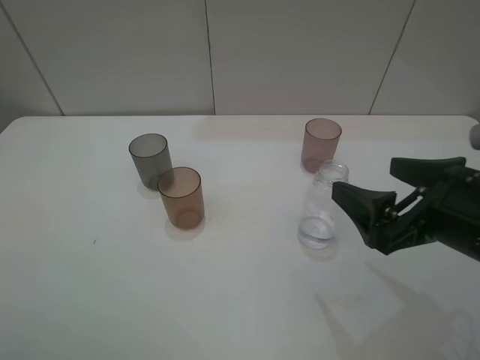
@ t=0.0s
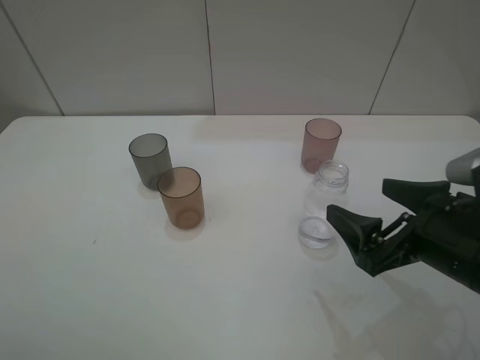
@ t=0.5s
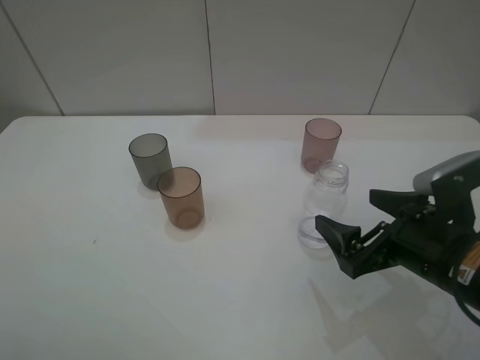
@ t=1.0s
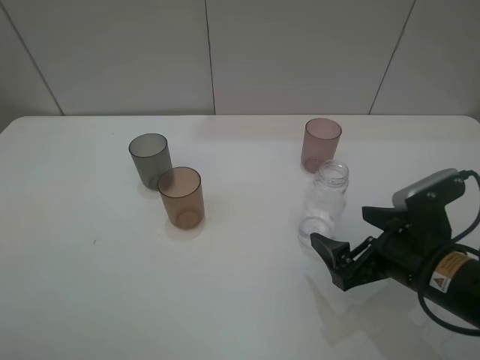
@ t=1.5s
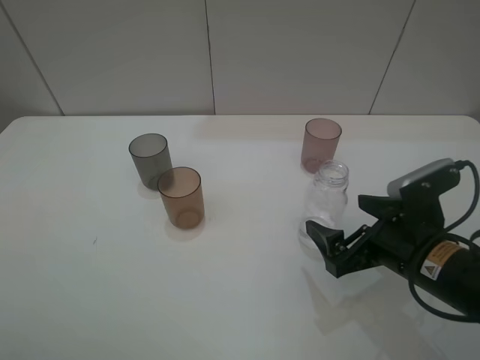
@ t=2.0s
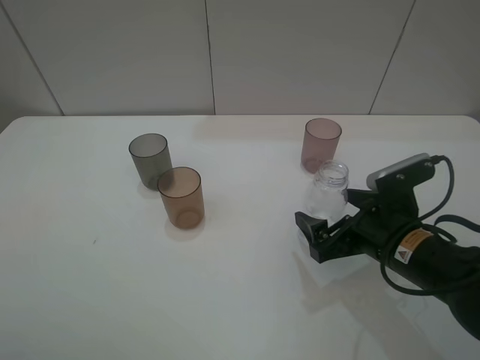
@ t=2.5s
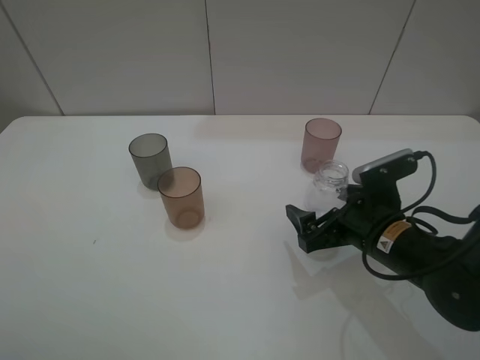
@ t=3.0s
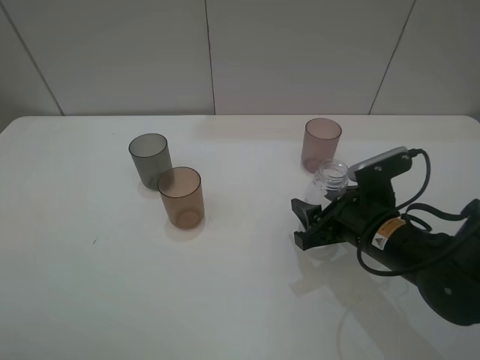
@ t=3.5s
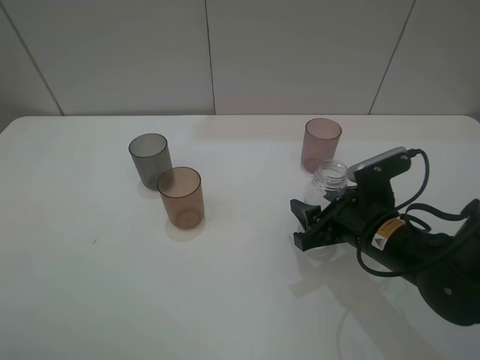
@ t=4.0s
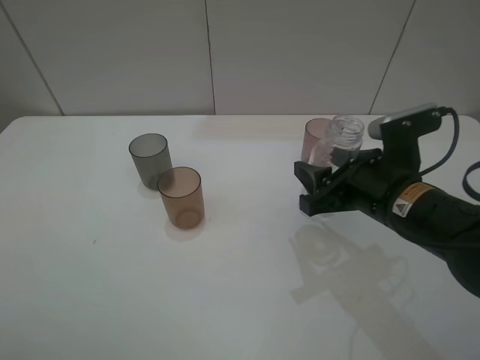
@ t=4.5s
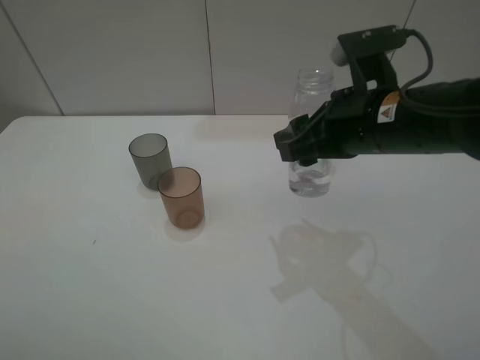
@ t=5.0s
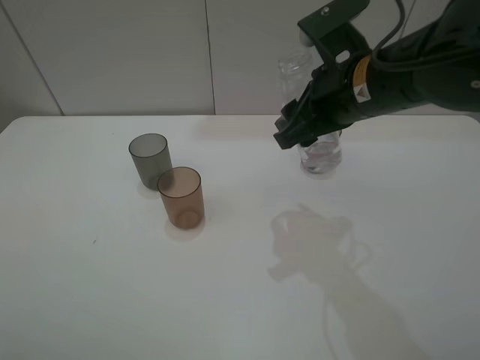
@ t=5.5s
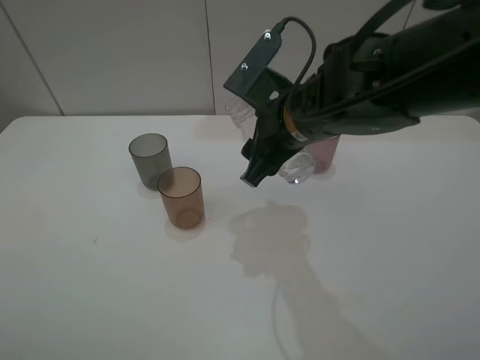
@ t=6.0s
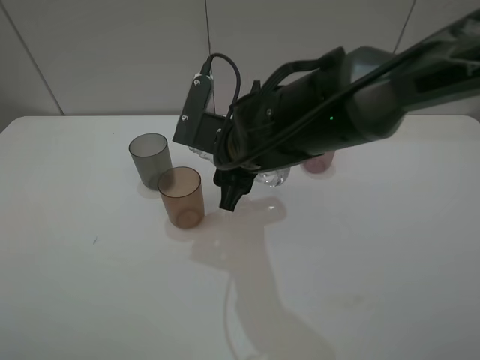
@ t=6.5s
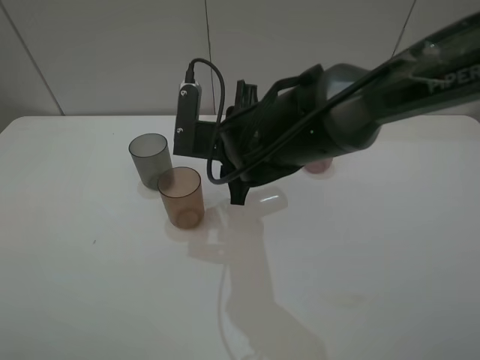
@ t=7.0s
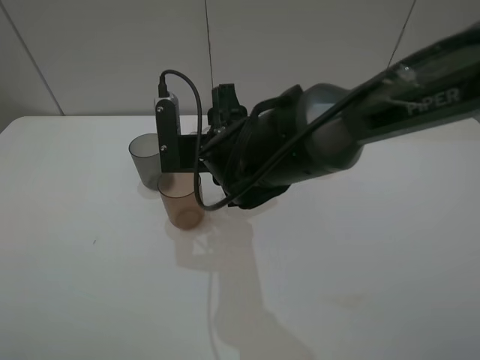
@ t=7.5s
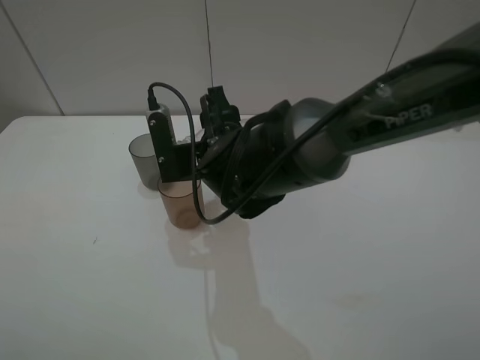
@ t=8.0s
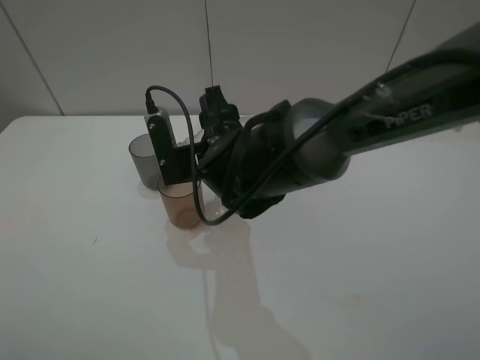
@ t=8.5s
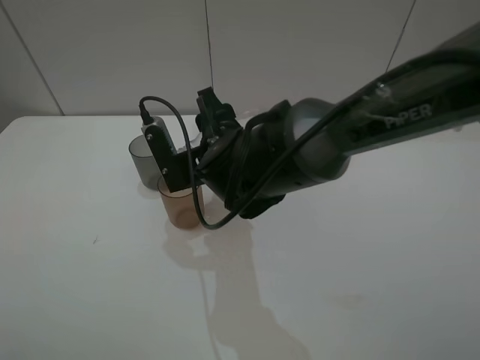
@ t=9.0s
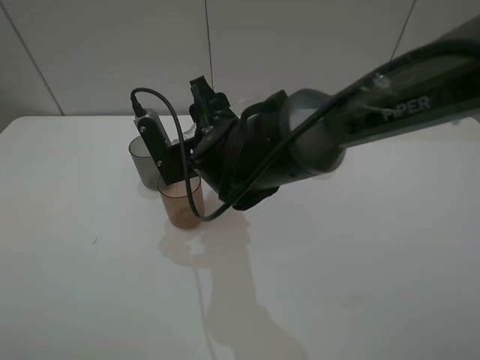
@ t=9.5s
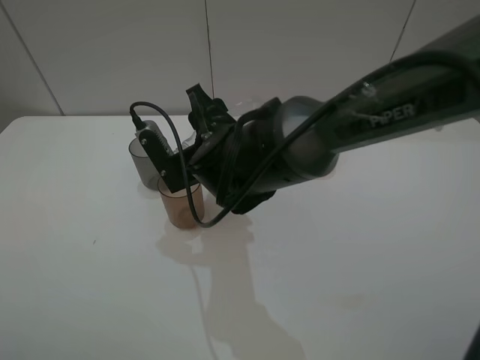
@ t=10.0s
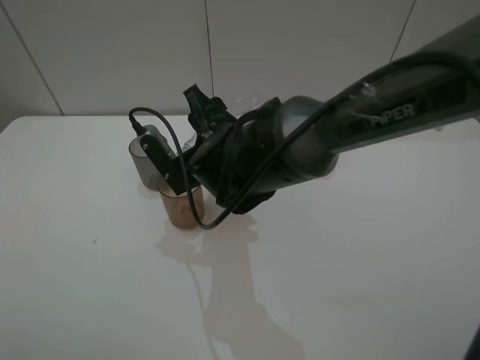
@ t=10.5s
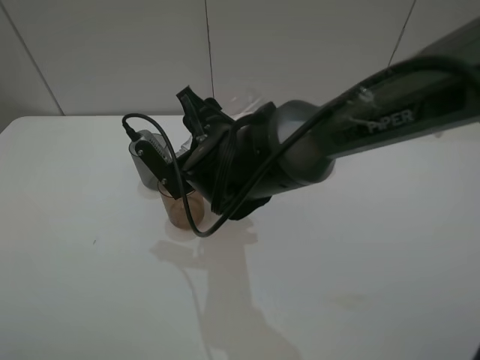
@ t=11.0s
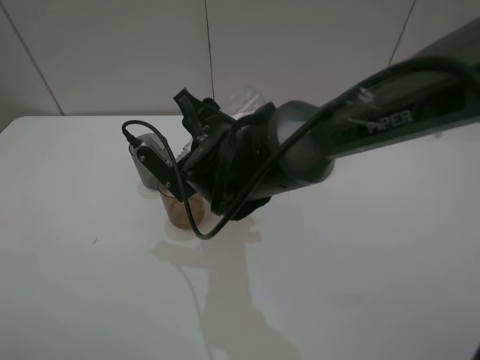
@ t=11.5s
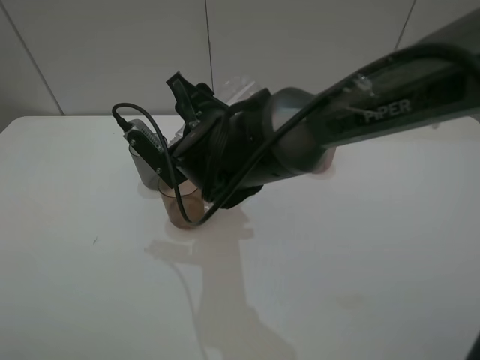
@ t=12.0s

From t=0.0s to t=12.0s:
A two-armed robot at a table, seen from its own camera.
Task of the whole recording: pick up the bottle filled with water and pour water into the middle cup of the three cups.
Step, from t=0.0s to t=4.0s: Grasp the transparent bottle with the right gripper.
From t=0.0s to t=2.0s: The right gripper travels downward by about 10 cm.
From t=2.0s to t=4.0s: The right gripper moves roughly 5 cm, and closes its fingers.
From t=4.0s to t=6.0s: The right gripper goes about 20 cm upward, to the left and forward.
From t=6.0s to t=8.0s: The right gripper travels to the left and downward by approximately 10 cm.
From t=8.0s to t=10.0s: The grippers move only a little.
From t=10.0s to t=12.0s: The grippers move only a little.

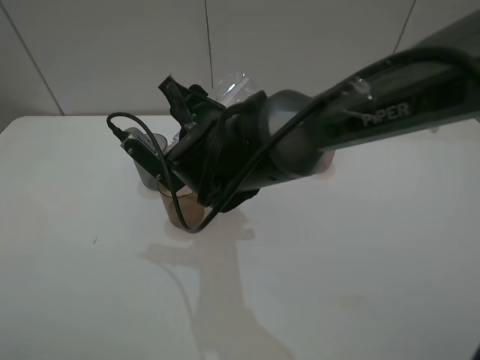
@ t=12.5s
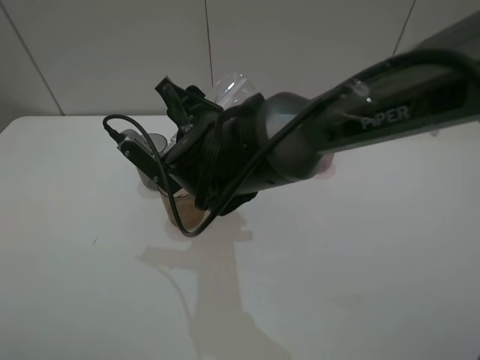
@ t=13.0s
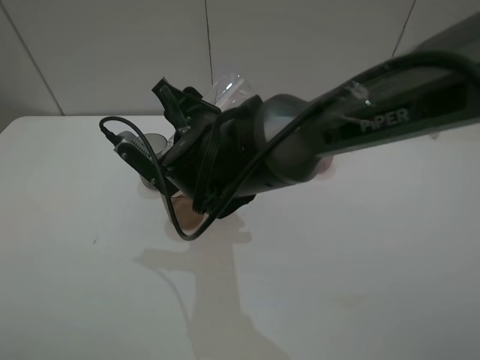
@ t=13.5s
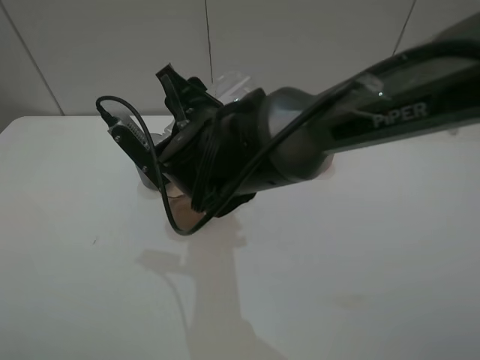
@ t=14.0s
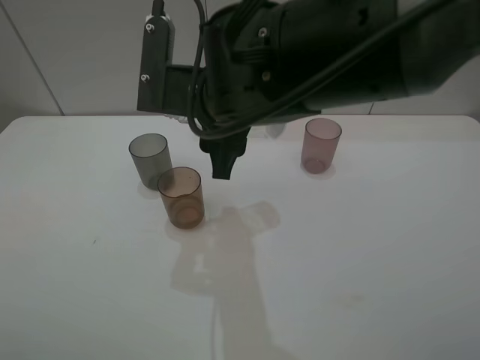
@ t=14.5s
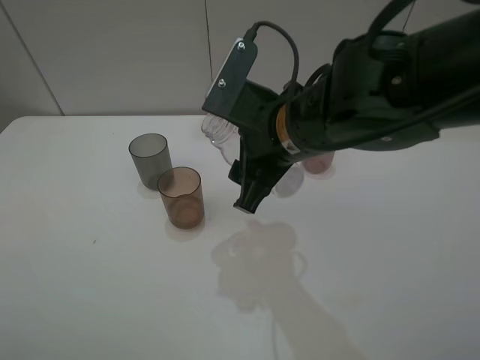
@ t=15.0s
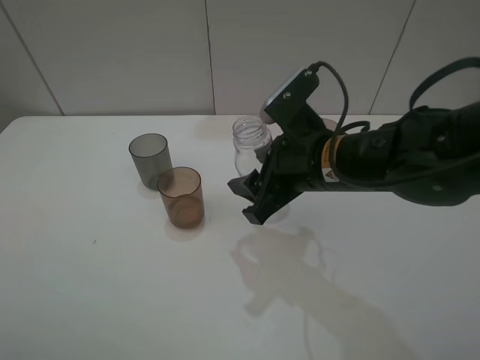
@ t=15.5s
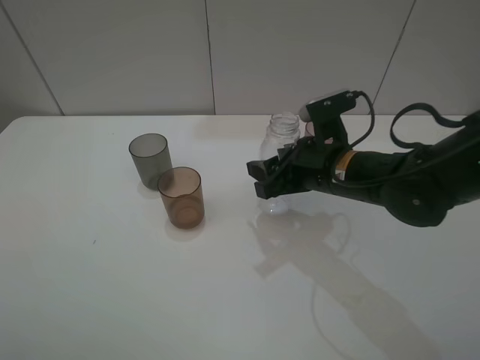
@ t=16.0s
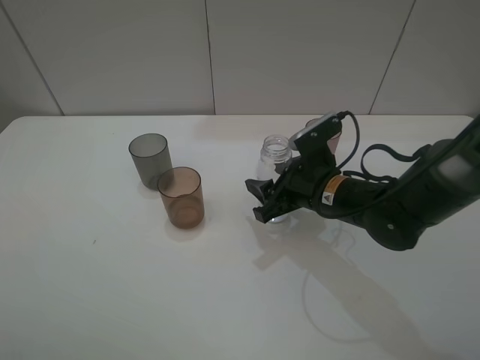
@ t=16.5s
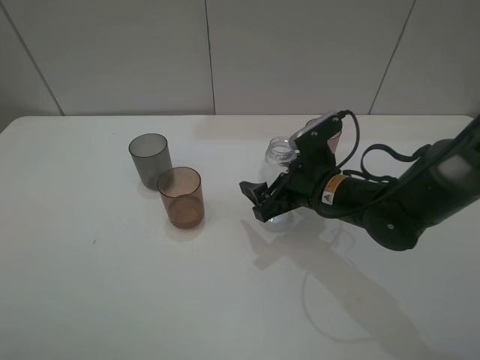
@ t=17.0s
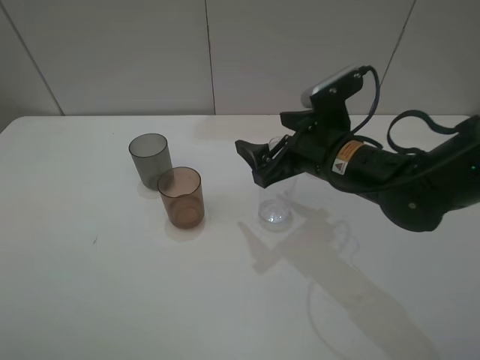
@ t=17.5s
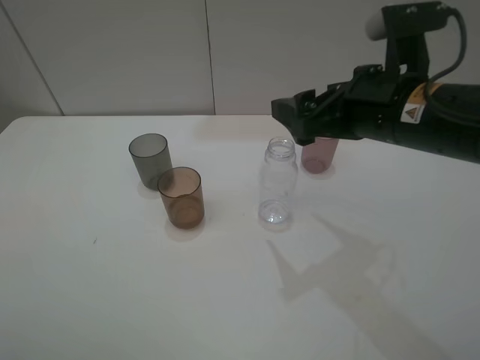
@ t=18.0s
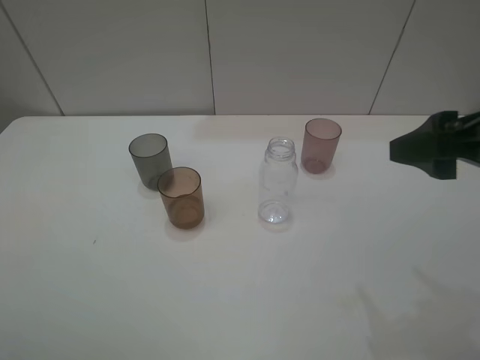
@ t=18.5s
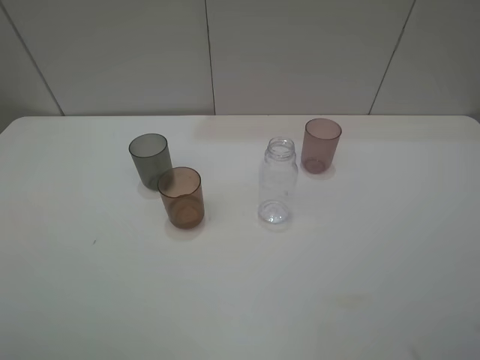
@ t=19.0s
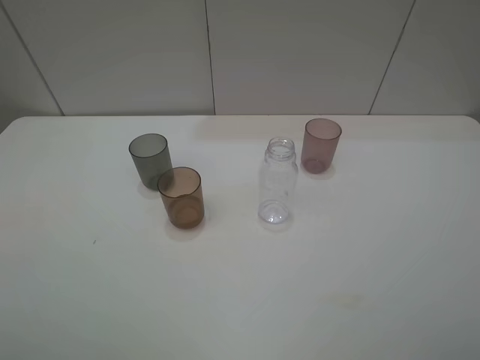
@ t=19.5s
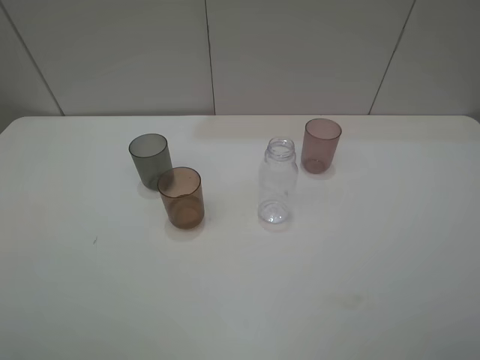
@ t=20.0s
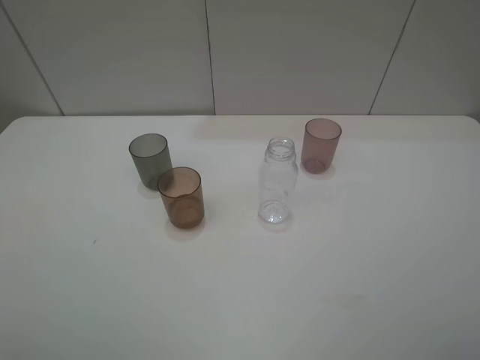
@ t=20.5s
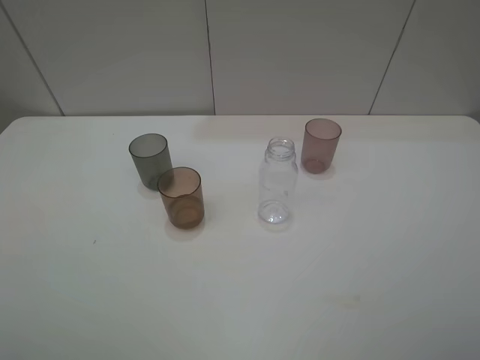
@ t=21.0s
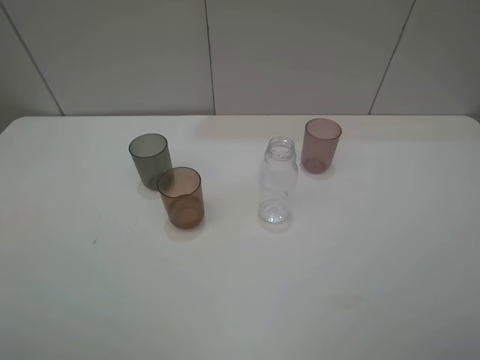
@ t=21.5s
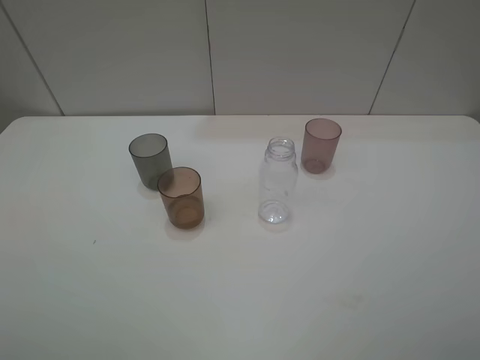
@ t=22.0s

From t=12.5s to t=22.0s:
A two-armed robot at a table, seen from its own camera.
Task of the whole recording: pick up the bottle filled with water and pour water into the middle cup of the three cups.
Step, from t=12.5s to t=14.5s: Pour water from transparent bottle tobrown cup with the right gripper.
Step, from t=15.0s to t=17.5s: Place the transparent bottle with the right gripper.
From t=12.5s to t=14.5s: The right gripper travels upward by about 5 cm.
From t=14.5s to t=16.5s: The right gripper shifts approximately 20 cm downward and to the right.
From t=16.5s to t=18.0s: The right gripper heads upward, covering approximately 15 cm, and opens its fingers.
From t=18.0s to t=20.0s: The right gripper goes approximately 25 cm backward and to the right.
